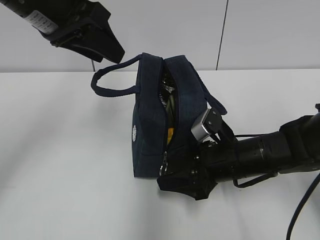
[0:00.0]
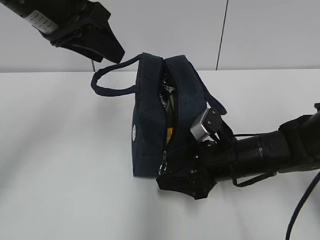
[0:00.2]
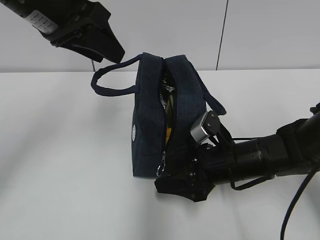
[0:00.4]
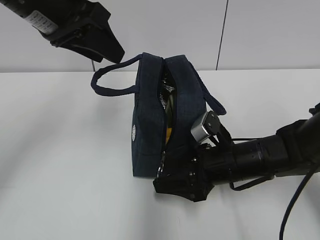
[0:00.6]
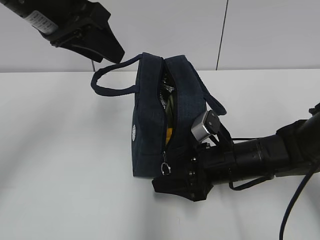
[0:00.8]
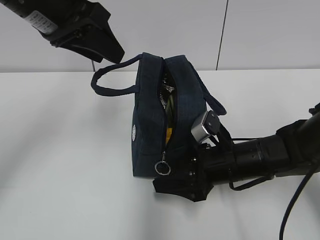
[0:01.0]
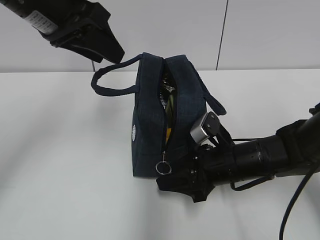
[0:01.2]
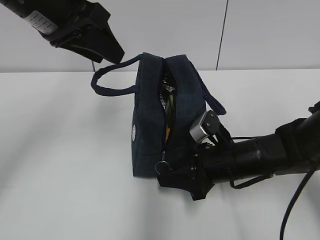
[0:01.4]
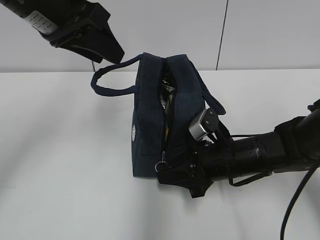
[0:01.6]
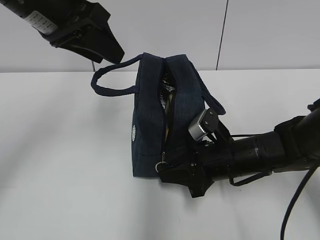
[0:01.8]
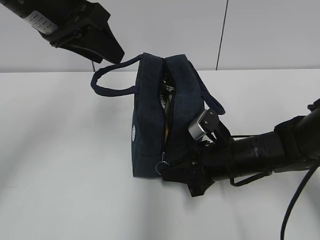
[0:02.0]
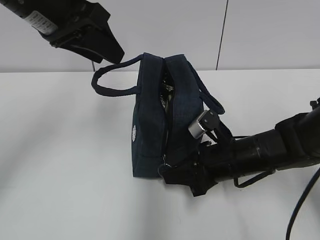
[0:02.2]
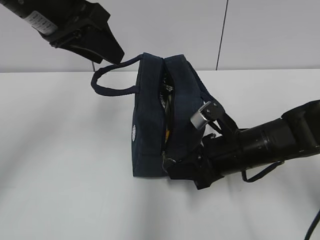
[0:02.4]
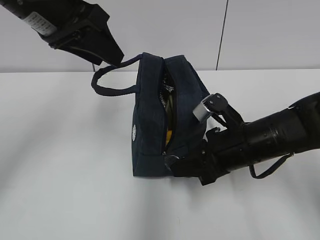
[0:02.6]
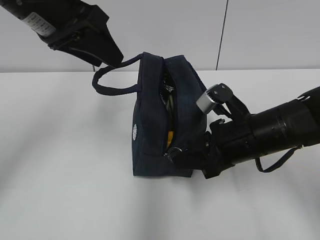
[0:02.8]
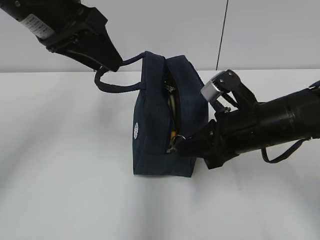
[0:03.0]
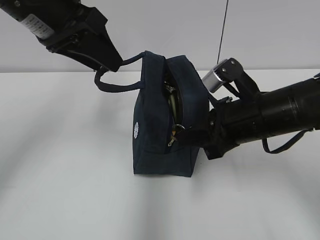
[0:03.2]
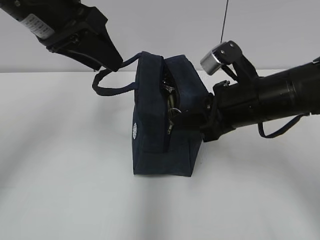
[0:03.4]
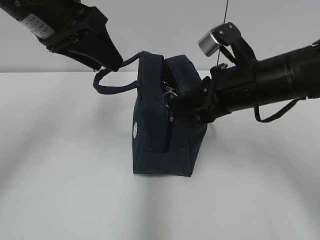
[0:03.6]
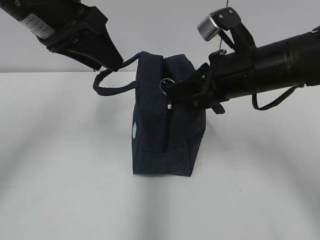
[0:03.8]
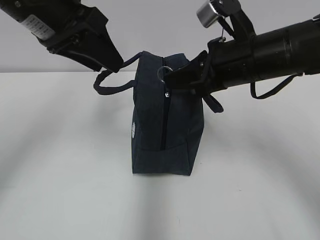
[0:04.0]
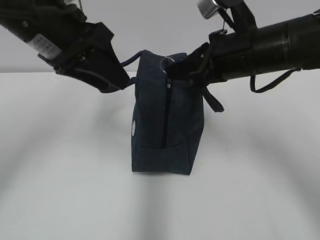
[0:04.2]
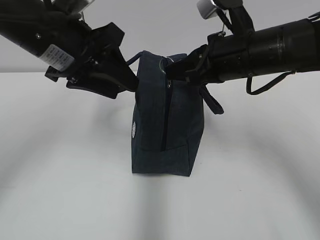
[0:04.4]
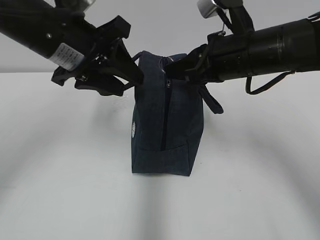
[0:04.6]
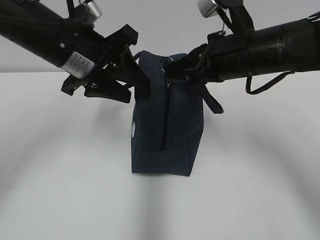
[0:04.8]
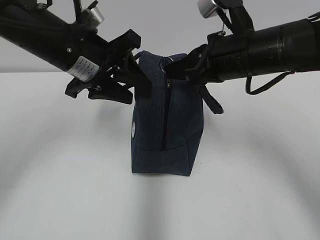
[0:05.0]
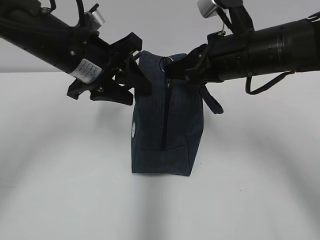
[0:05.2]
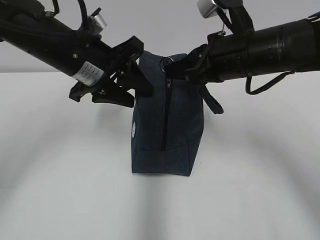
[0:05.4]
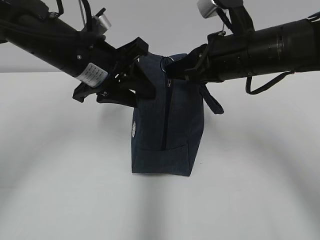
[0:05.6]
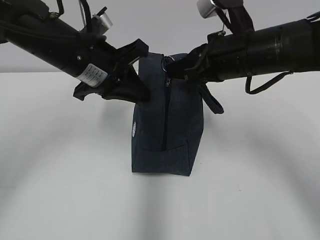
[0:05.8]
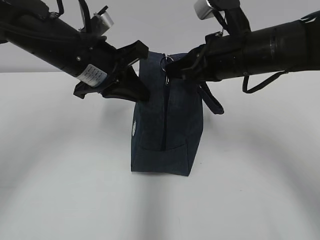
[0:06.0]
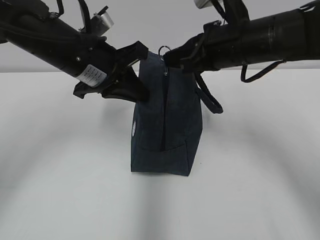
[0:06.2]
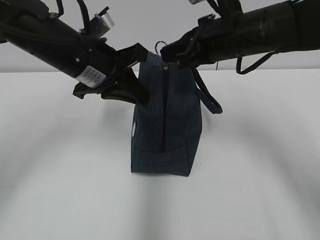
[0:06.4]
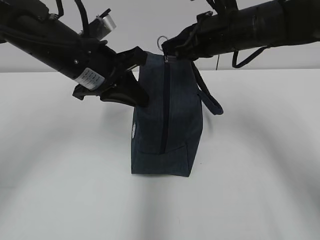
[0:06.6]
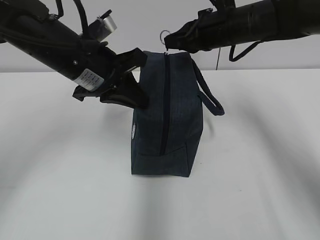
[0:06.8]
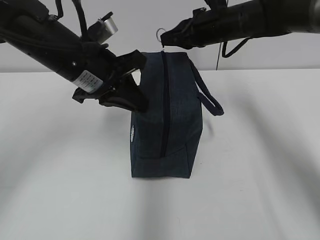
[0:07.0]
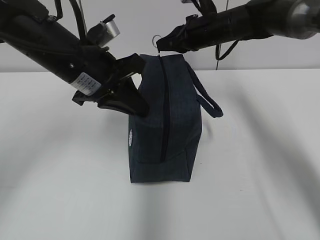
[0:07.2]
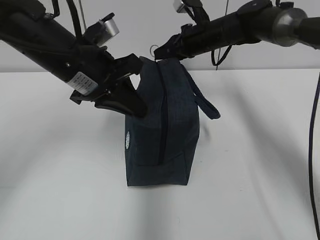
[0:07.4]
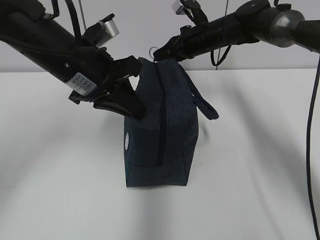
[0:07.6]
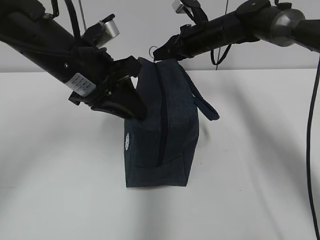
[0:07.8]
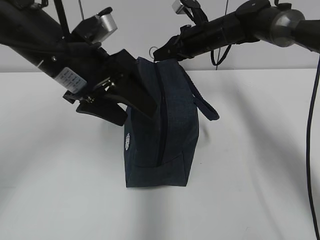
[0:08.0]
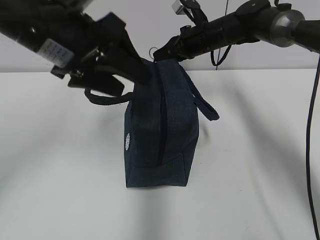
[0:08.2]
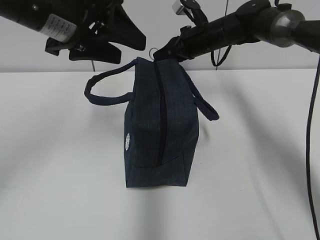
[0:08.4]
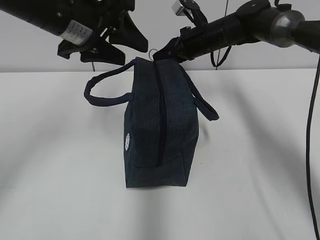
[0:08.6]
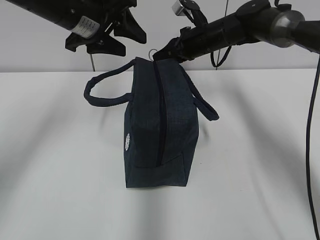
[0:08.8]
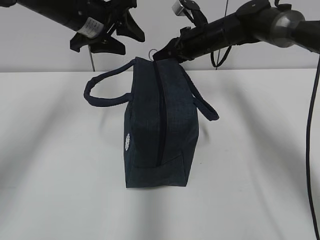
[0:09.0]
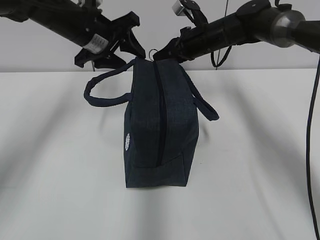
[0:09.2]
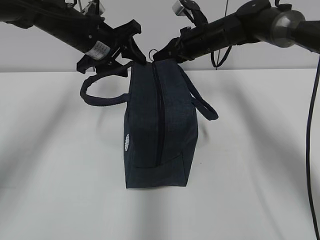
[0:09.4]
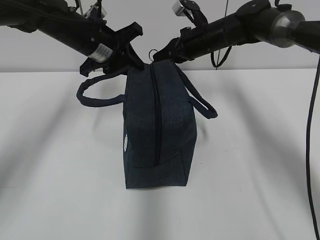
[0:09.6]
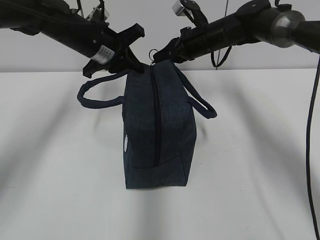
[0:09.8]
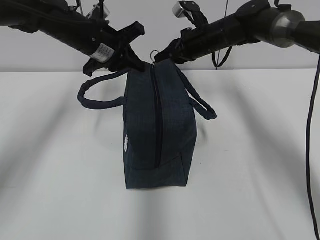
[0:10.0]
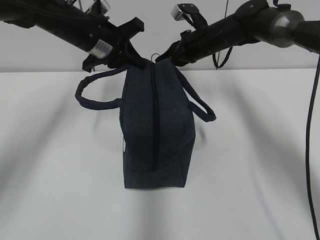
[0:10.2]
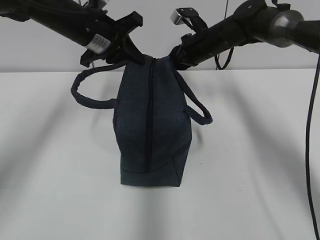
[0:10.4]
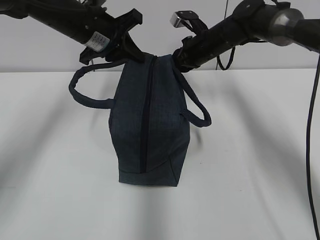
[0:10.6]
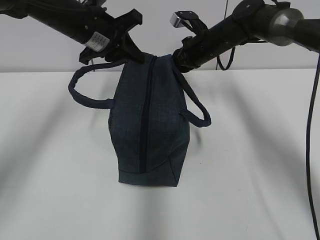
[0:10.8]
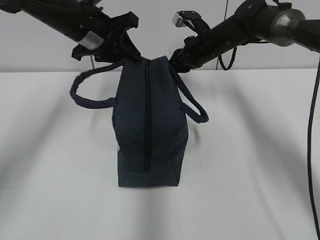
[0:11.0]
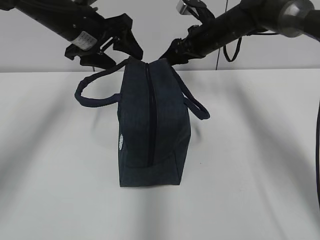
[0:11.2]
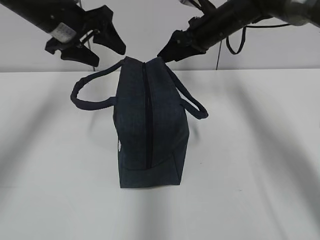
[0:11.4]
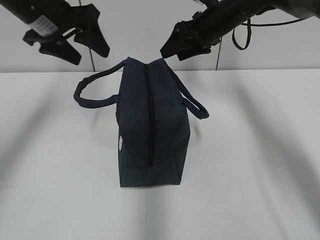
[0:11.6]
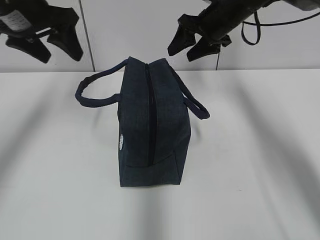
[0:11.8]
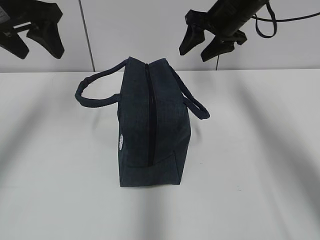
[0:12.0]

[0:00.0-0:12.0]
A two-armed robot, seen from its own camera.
Step, 0:00.0 to 0:05.6: Grab the lunch bag with your left hand.
Step, 0:05.8 to 0:10.8: Pull the zipper with your right hand.
0:00.0 to 0:01.6: The right gripper closes its fingers.
0:01.6 to 0:03.0: The right gripper goes approximately 10 cm upward, and closes up.
0:03.0 to 0:04.4: The right gripper heads upward and forward, covering about 10 cm.
0:04.4 to 0:06.0: The left gripper changes place by approximately 5 cm, and closes.
0:06.0 to 0:07.6: The right gripper travels forward by some 20 cm.
0:07.6 to 0:09.0: The left gripper is displaced forward by some 10 cm, and opens up.
0:09.0 to 0:10.4: The left gripper closes.
0:10.4 to 0:12.0: The right gripper heads upward, covering approximately 10 cm, and opens, while the left gripper travels to the left, upward and backward by roughly 15 cm, and opens.

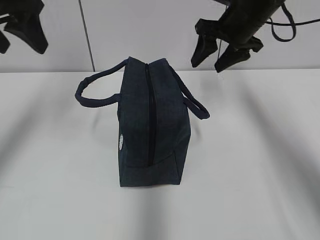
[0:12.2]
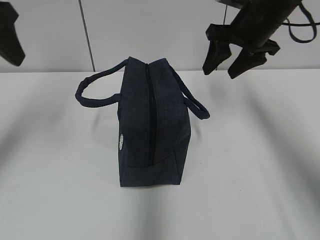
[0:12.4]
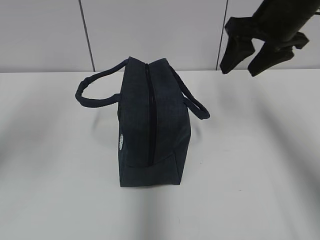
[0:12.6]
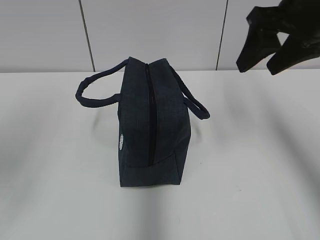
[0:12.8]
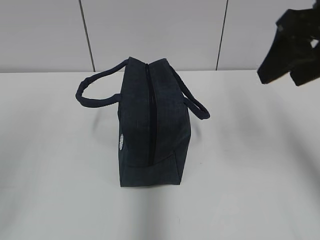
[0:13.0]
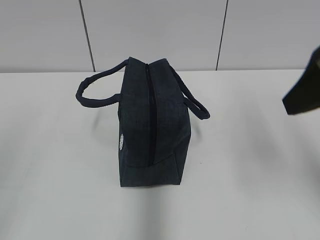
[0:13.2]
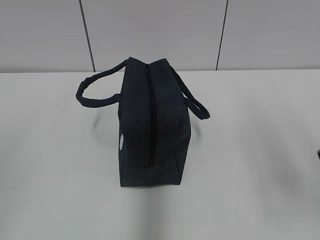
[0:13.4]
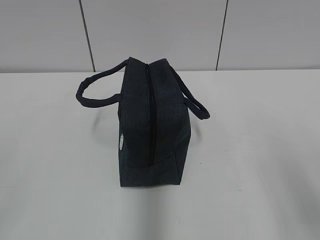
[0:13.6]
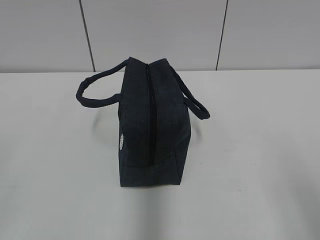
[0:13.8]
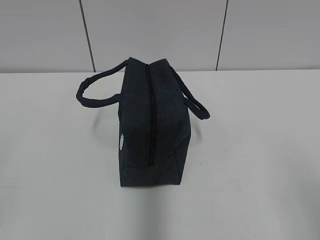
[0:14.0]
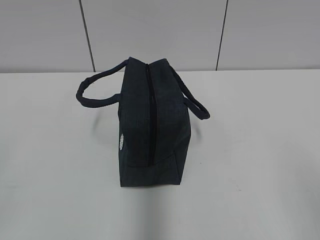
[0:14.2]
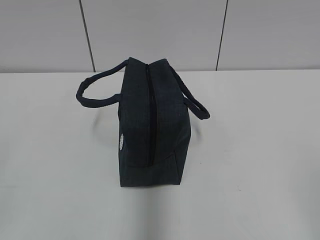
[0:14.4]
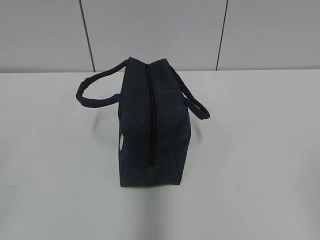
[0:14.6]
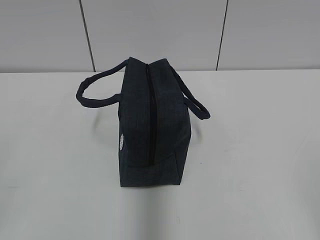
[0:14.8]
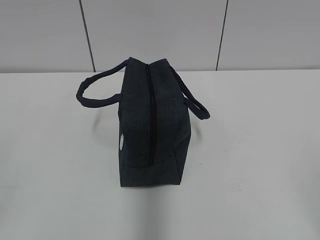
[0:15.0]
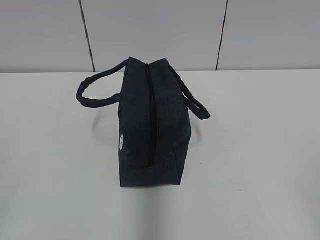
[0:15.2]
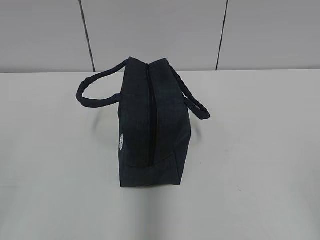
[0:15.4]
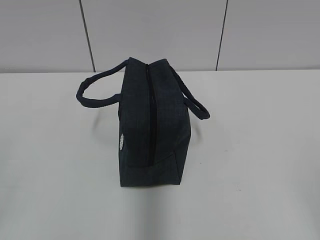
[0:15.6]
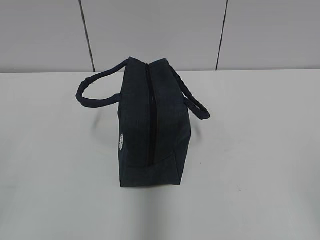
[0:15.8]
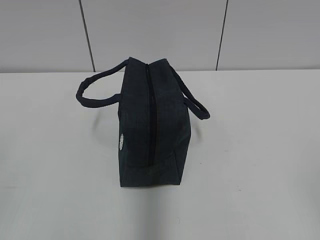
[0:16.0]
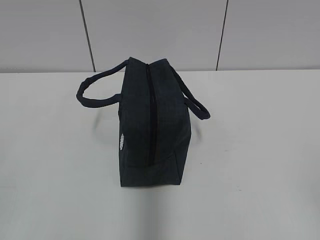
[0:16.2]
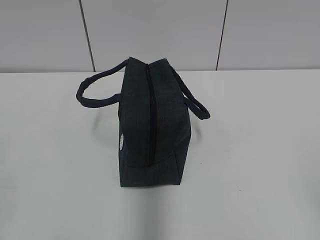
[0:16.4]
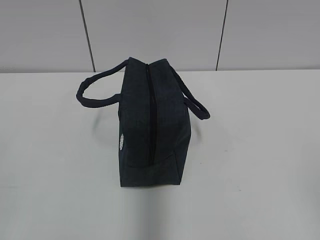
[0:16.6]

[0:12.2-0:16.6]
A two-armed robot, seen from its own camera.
0:12.2 to 0:13.6: The two grippers go approximately 35 cm backward.
0:13.6 to 0:15.2: The right gripper travels backward by some 10 cm.

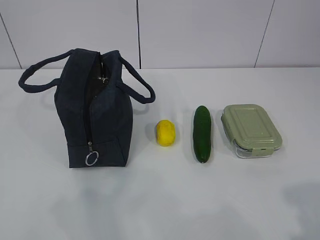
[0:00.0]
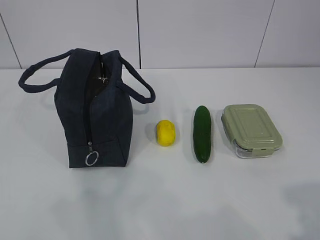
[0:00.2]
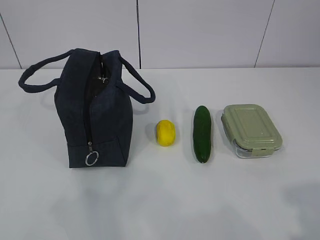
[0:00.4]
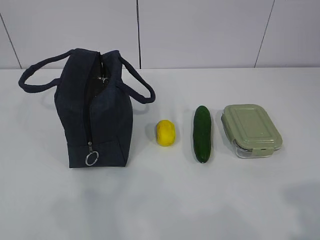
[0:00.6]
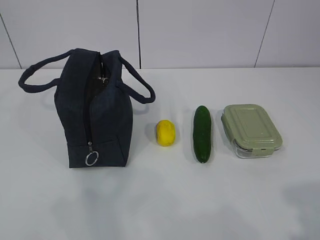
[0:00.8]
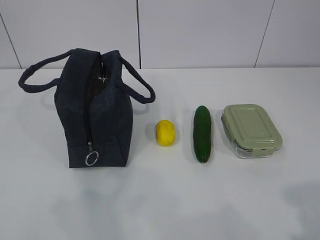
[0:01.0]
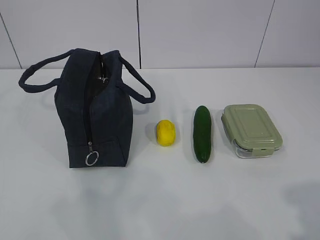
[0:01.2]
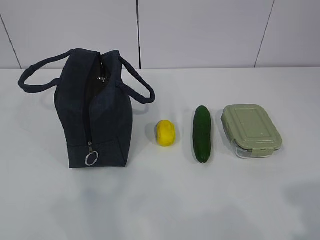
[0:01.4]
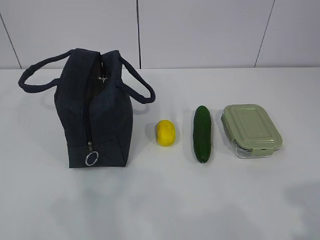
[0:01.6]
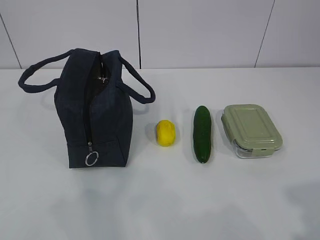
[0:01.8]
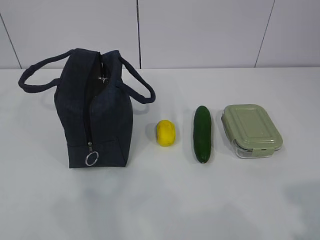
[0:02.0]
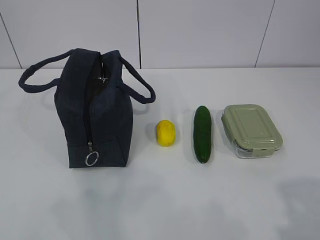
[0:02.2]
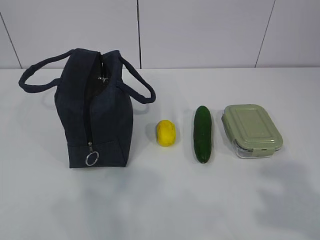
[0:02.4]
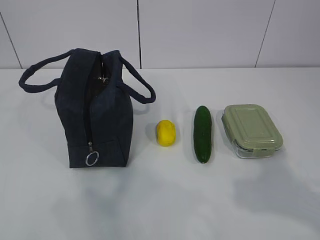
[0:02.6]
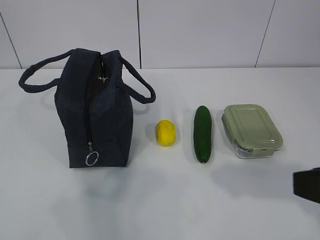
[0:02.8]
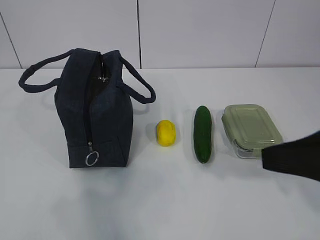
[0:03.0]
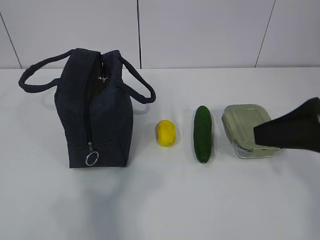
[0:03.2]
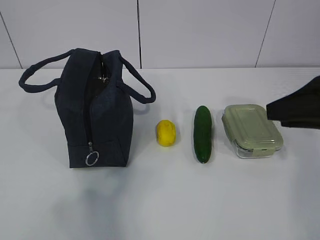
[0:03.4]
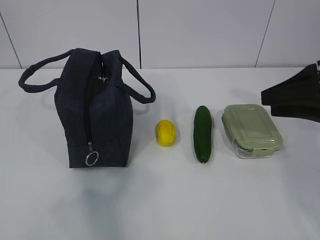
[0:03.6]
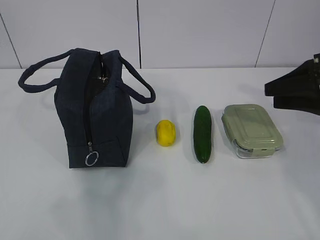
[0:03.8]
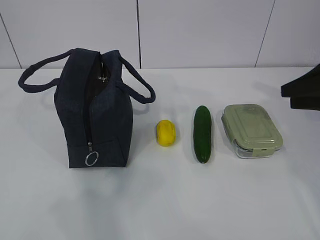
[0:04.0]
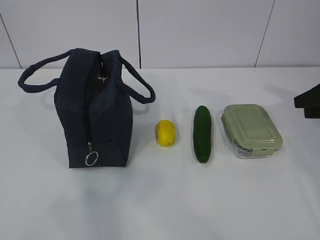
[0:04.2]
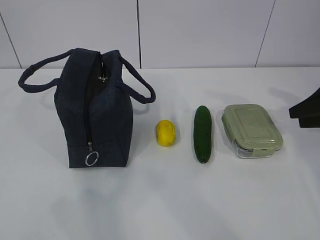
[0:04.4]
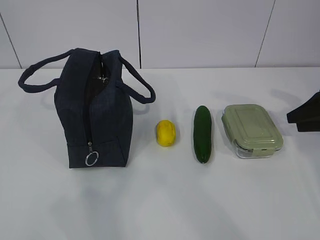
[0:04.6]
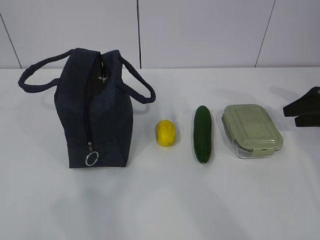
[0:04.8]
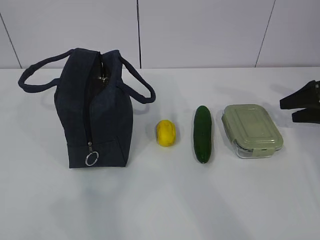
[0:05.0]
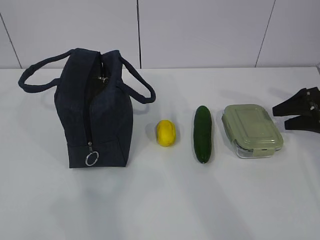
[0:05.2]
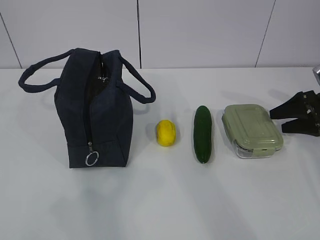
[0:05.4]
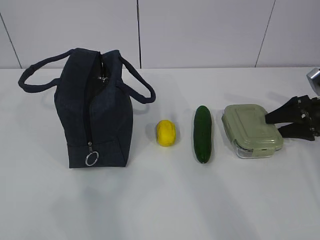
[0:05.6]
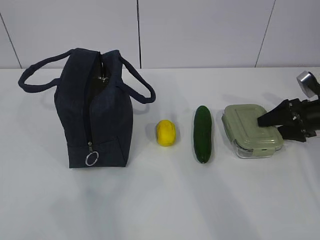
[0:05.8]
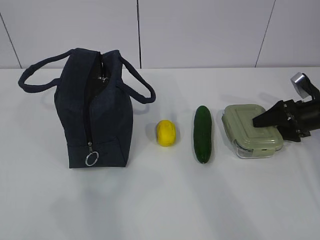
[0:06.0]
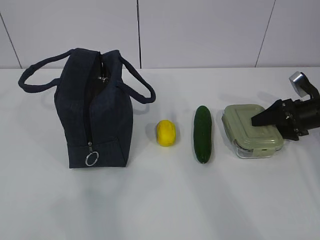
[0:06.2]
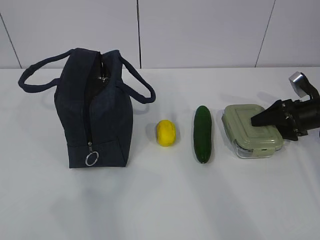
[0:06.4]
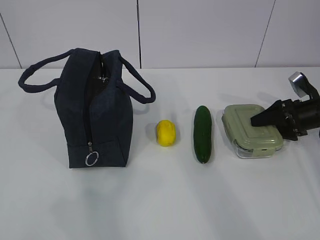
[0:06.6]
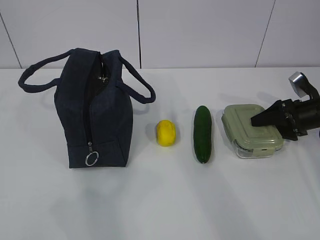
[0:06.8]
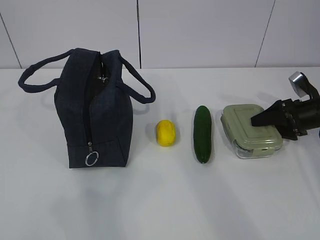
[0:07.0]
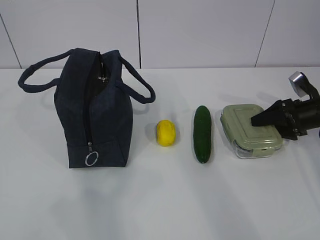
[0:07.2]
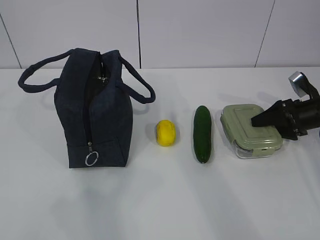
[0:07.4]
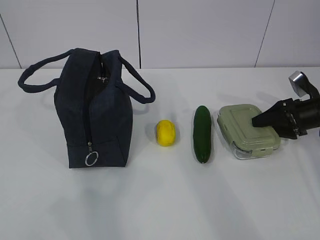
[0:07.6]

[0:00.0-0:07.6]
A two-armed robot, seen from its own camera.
0:01.6 to 0:03.0: The right gripper moves forward and to the left, about 20 cm.
0:03.0 to 0:04.6: The right gripper travels forward, to the right and downward by about 30 cm.
0:04.6 to 0:06.0: The right gripper shifts some 5 cm downward.
0:06.0 to 0:07.6: Neither gripper changes place.
